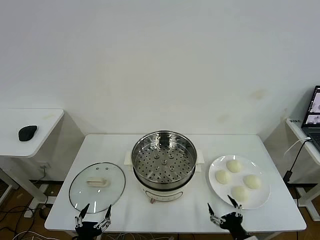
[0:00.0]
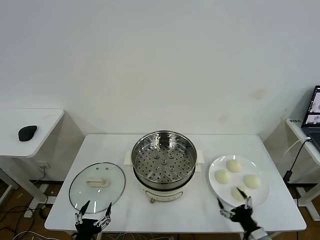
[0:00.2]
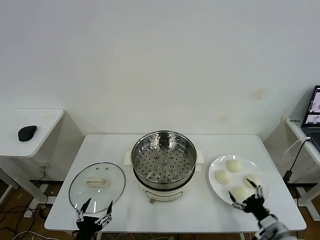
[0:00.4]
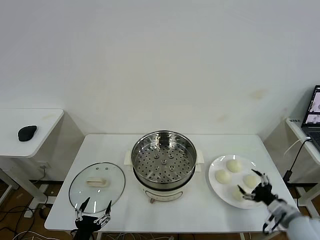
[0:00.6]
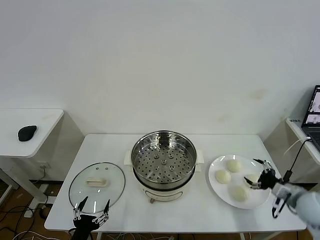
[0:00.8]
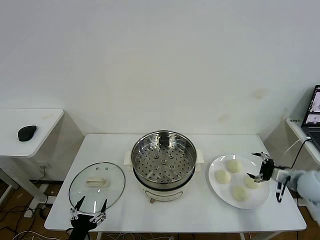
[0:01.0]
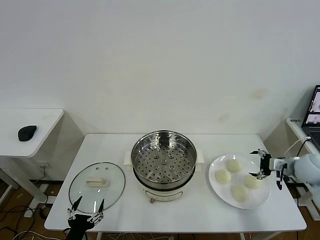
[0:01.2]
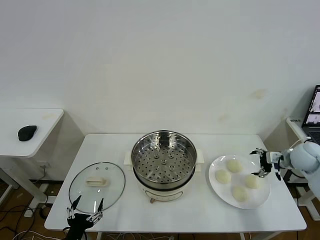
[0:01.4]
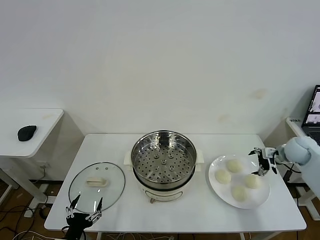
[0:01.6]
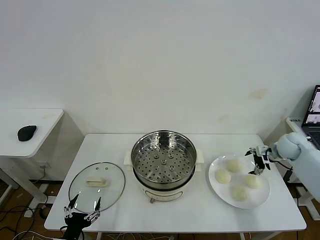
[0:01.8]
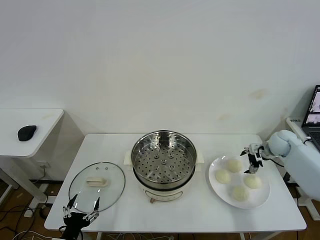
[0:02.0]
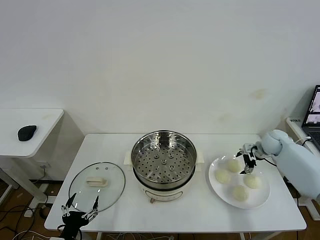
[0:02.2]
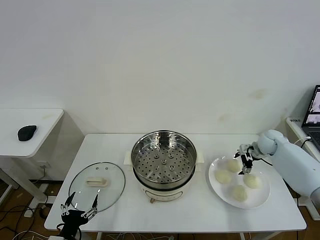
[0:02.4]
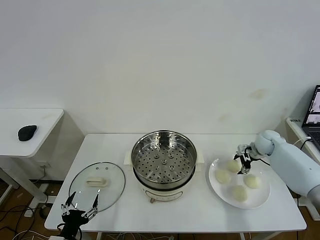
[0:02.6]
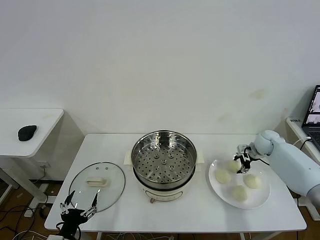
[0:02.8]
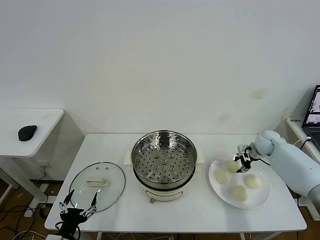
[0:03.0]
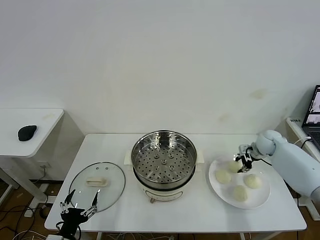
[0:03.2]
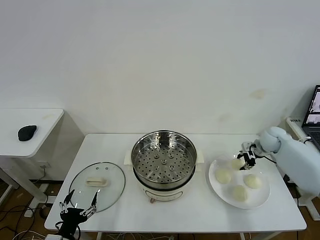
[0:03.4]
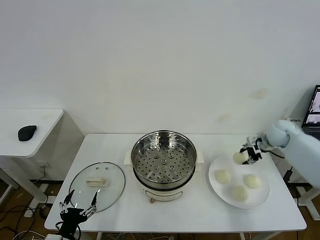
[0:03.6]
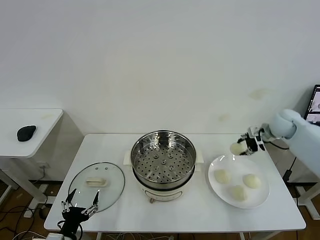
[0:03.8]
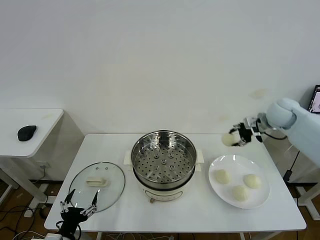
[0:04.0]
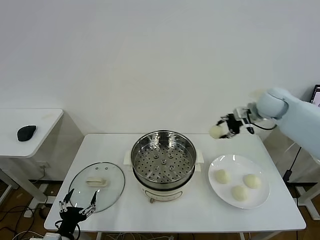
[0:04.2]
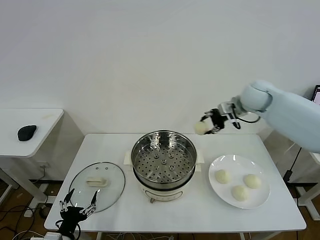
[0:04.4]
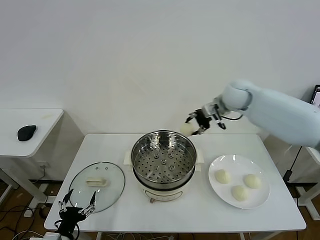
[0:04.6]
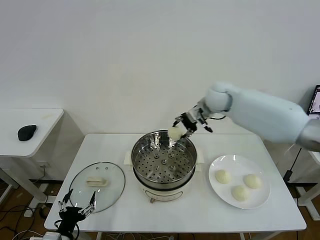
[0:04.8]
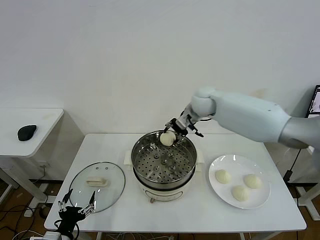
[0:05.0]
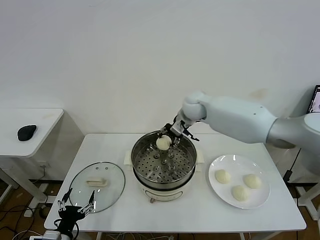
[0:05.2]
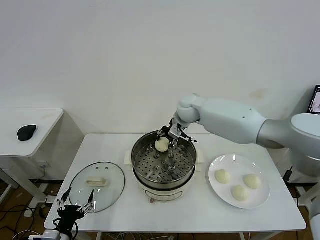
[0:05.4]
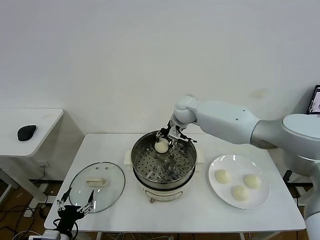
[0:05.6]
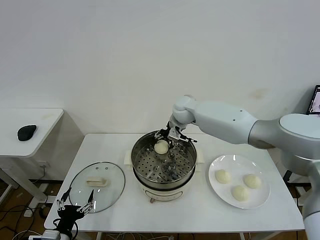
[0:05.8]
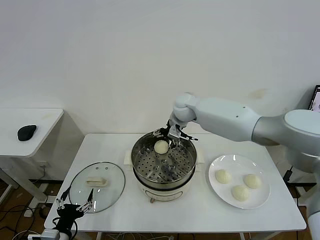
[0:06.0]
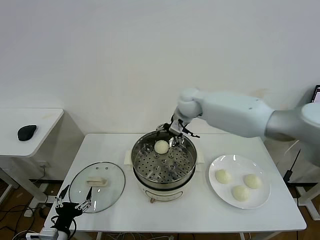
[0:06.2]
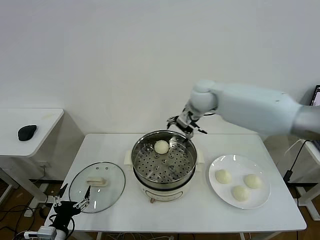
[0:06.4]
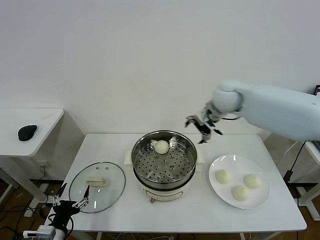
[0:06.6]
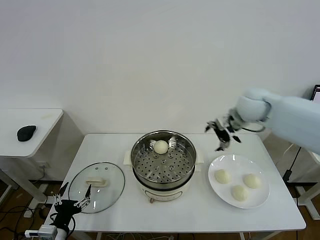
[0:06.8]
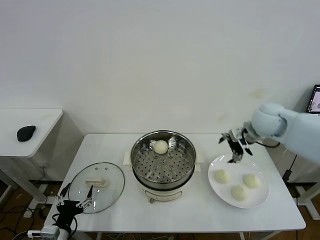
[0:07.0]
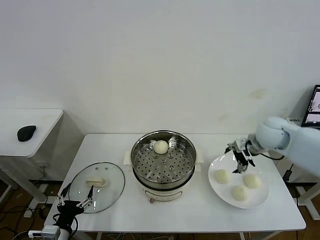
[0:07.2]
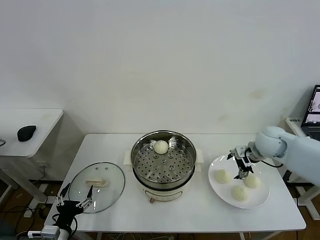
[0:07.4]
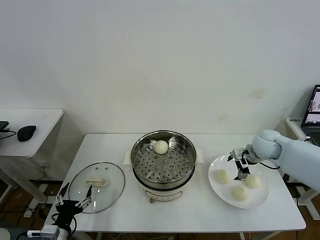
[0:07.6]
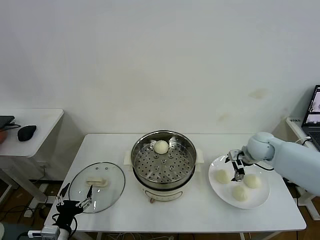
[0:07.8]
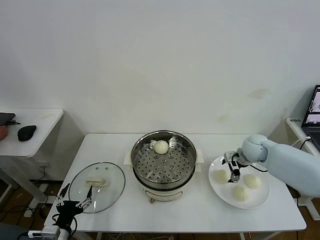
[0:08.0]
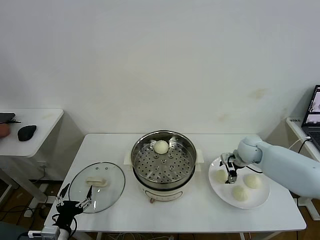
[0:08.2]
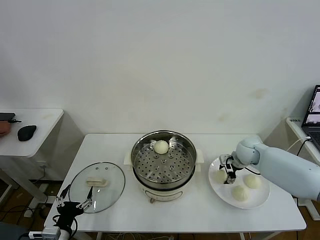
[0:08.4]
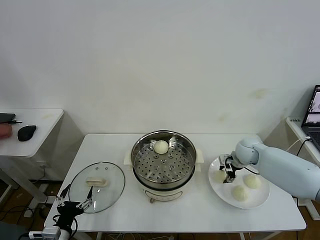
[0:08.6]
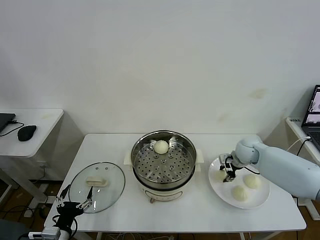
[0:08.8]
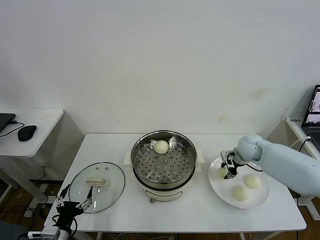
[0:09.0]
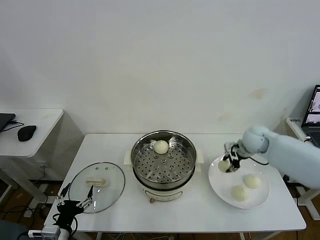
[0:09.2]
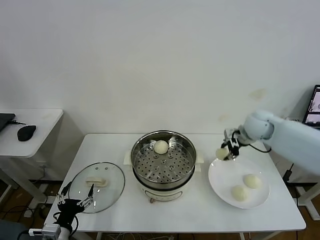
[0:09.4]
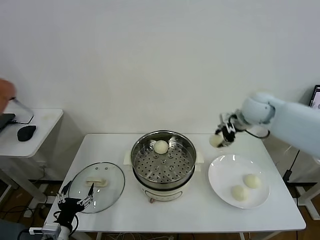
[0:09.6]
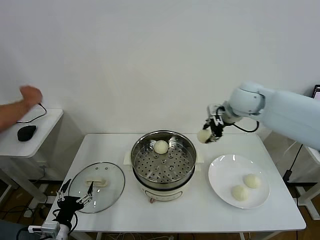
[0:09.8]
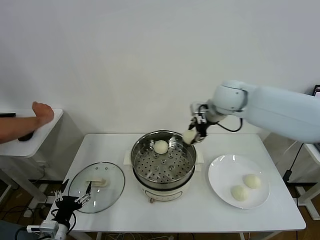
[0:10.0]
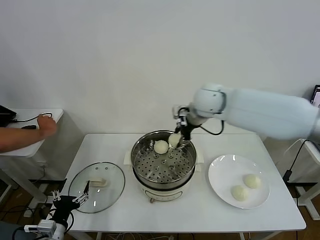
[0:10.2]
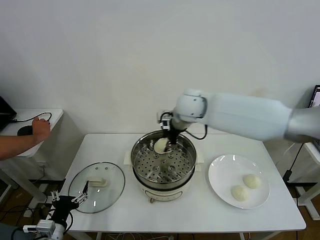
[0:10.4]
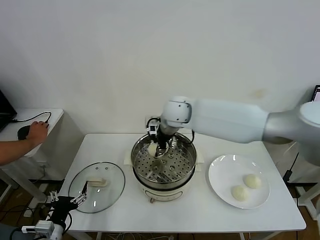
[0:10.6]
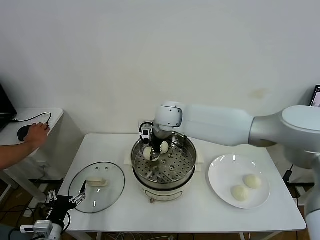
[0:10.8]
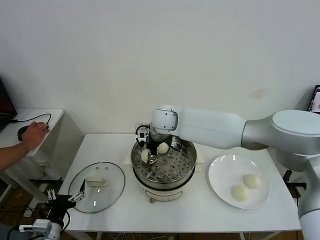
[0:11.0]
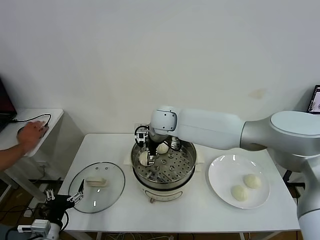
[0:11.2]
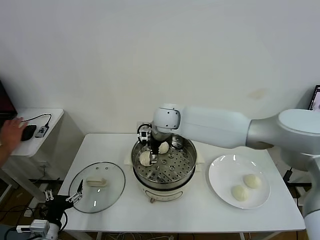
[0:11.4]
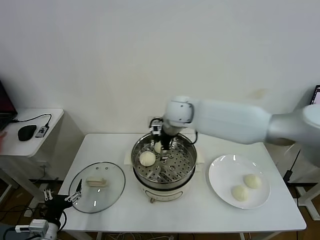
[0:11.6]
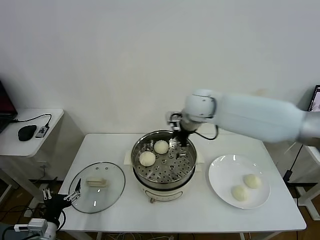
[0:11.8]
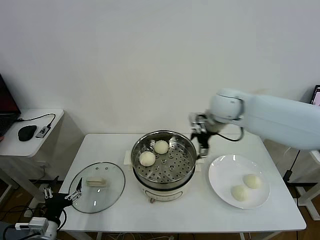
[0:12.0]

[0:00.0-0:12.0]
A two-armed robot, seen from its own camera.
Task of the whole recording: take steamed baozi put them in steamer then cover it.
Step, 0:00.0 to 0:02.8: Grasp the baozi in the plate with right gripper.
Step, 0:03.0 to 0:05.8: Place the baozi on the steamer with right gripper.
Step, 0:06.0 to 0:08.4: Grasp the baozi in the plate with right gripper.
Step, 0:08.6 to 0:11.2: Place the baozi on the steamer with right gripper.
0:01.6 to 0:03.0: The right gripper shifts some 10 cm forward and to the left, and closes its fingers.
0:03.0 to 0:04.4: The right gripper travels upward and to the left by some 25 cm.
0:04.4 to 0:06.0: The right gripper moves to the left, approximately 20 cm, and opens.
0:06.0 to 0:07.6: The right gripper travels to the right by roughly 25 cm.
0:07.6 to 0:09.0: The right gripper closes.
0:09.0 to 0:10.4: The right gripper heads to the left and upward, covering approximately 30 cm.
0:10.4 to 0:12.0: The right gripper goes approximately 15 cm to the right, and opens its fingers.

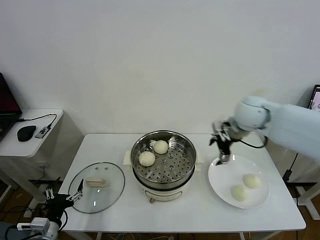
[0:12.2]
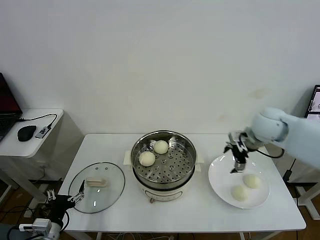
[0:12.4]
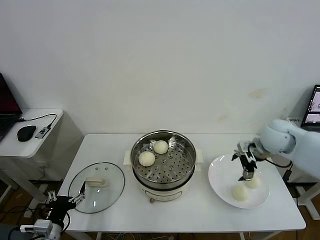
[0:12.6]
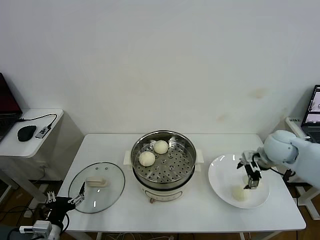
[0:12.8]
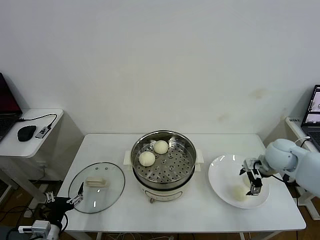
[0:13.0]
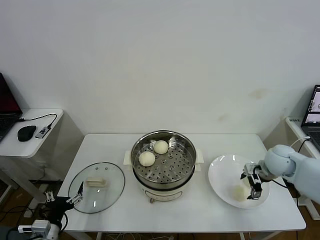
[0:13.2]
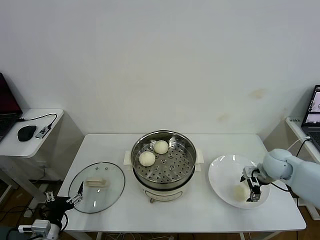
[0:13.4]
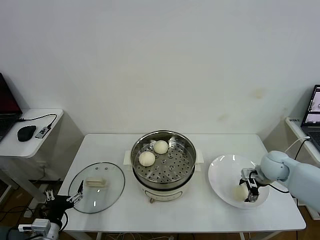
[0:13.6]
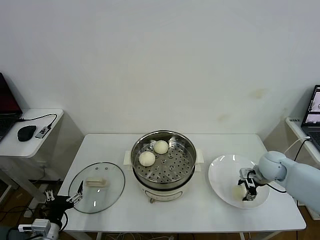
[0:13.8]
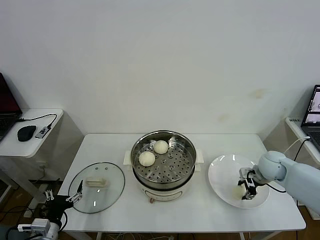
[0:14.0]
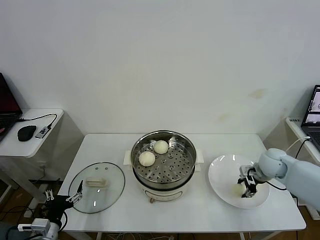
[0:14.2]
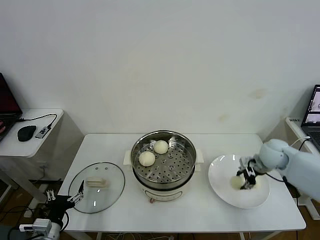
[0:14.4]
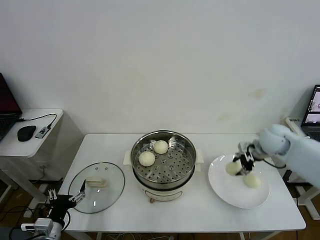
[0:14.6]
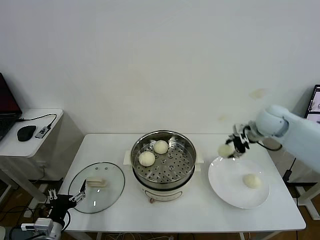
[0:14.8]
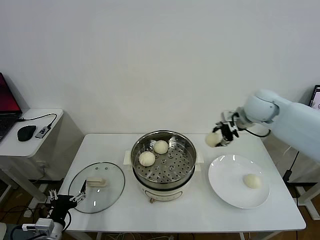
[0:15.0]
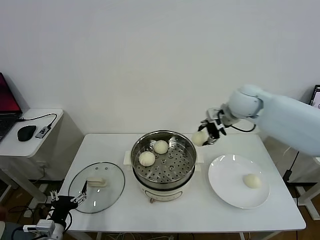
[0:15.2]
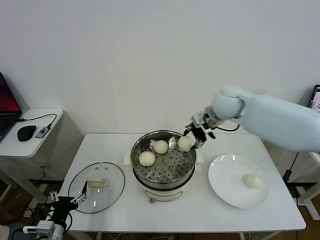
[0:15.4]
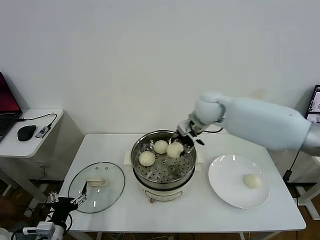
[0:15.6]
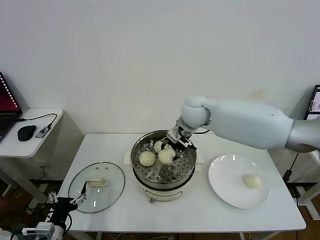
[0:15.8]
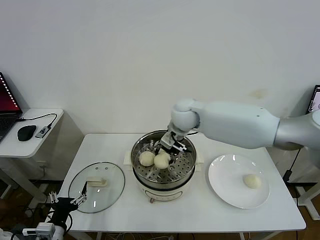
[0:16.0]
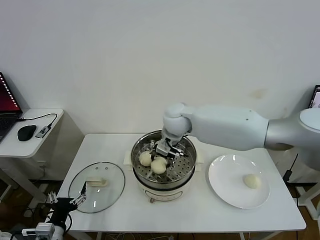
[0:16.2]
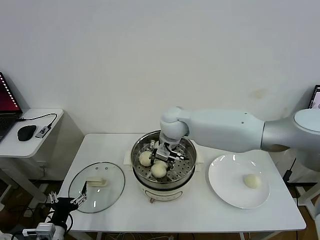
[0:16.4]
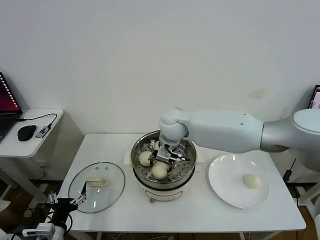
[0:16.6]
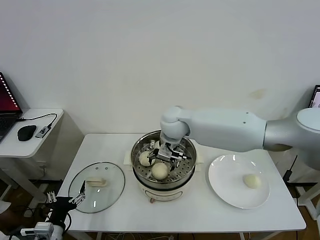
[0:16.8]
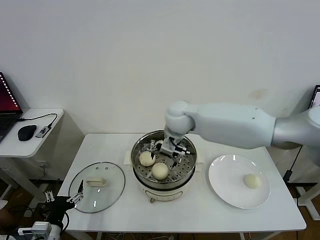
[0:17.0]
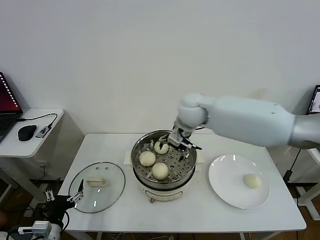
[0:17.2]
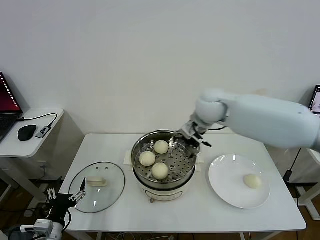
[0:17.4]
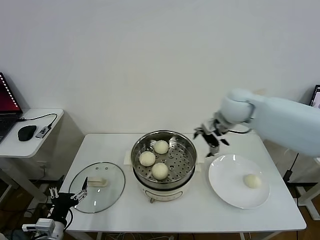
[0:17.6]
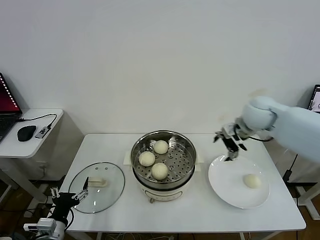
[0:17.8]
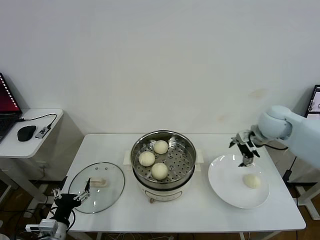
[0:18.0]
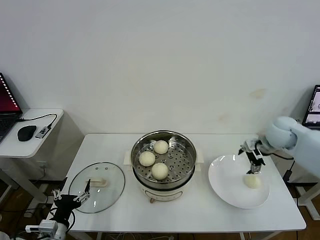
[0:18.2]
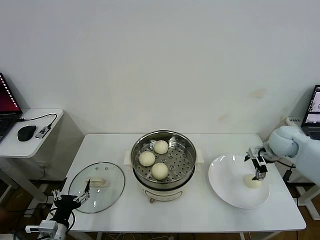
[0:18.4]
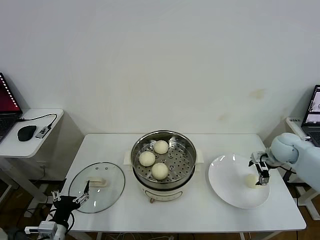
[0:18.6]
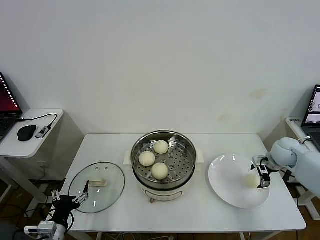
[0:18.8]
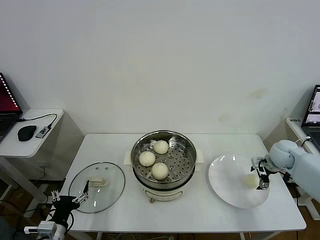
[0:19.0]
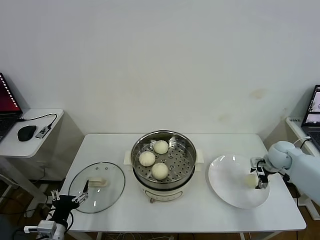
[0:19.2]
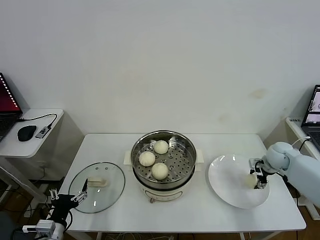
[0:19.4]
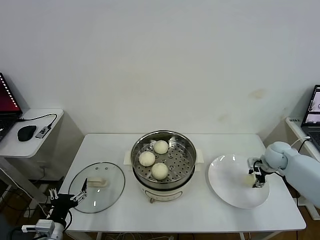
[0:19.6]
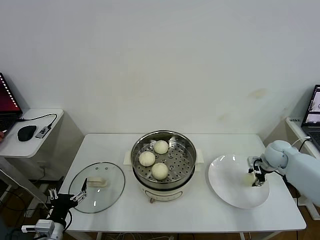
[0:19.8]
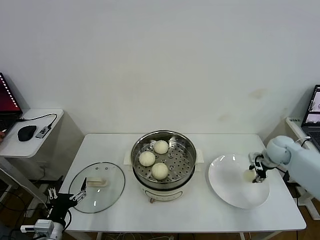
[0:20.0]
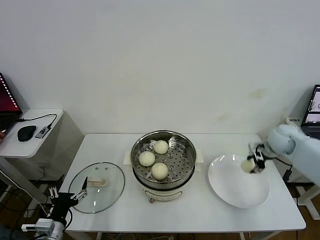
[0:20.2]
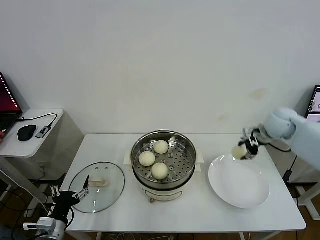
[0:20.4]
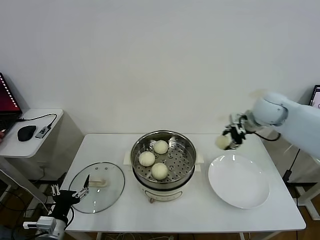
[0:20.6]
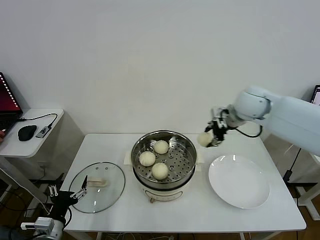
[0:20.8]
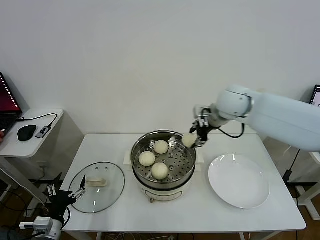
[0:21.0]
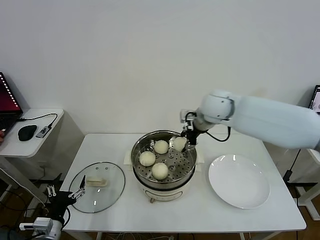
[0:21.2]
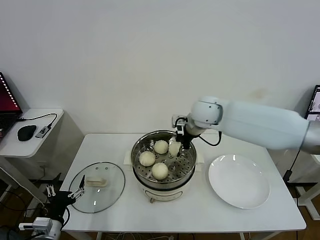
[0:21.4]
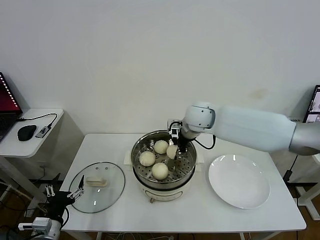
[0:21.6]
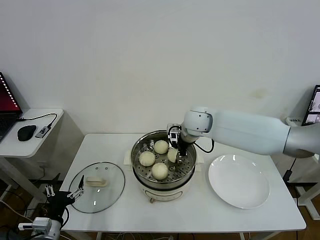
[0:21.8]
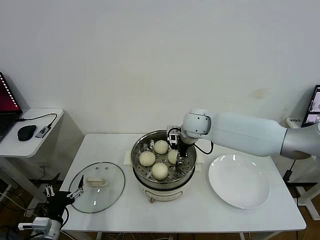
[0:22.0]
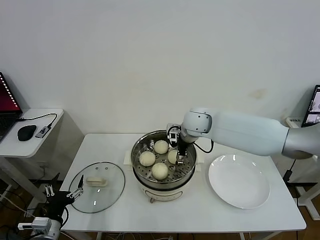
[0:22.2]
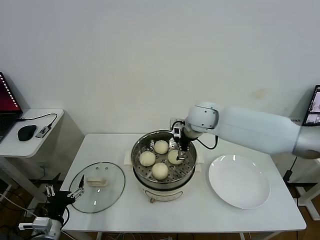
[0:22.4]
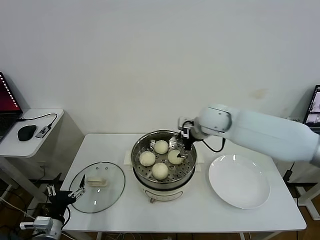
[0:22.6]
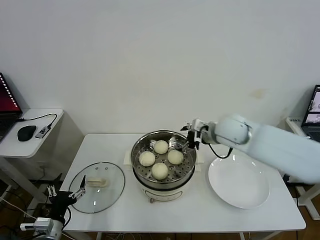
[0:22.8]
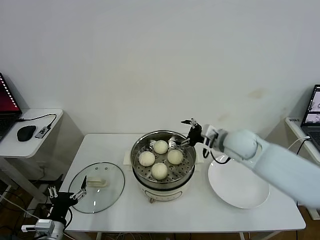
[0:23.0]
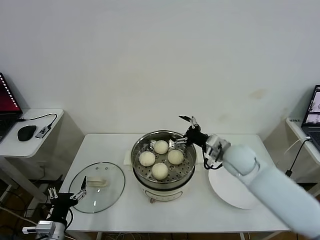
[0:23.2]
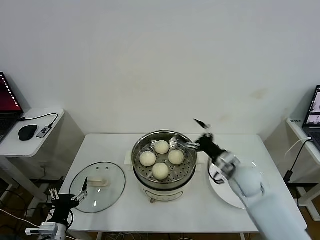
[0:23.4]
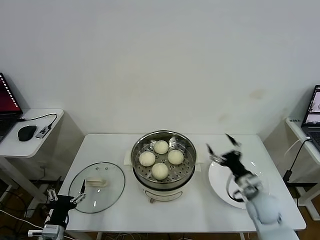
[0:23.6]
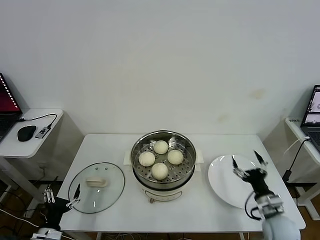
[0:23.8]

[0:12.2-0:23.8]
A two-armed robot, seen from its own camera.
Task of the whole recording: take steamed baozi put them in steamer then cover it.
Step, 0:12.2 to 0:13.8: Grasp the baozi in the plate with right gripper.
Step, 0:14.0 to 0:16.8: Place the baozi on the steamer with right gripper.
Step, 0:17.0 to 0:19.6: Grasp the baozi in the plate with right gripper.
Step, 0:19.8 to 0:22.2: Place the baozi on the steamer with right gripper.
0:12.2 to 0:13.6: The right gripper goes about 20 cm downward and to the right, and closes.
0:13.6 to 0:15.0: The right gripper goes about 25 cm upward, to the left and forward, and closes up.
0:15.0 to 0:16.6: The right gripper heads to the left, covering some 25 cm.
0:16.6 to 0:18.0: The right gripper is displaced to the right by some 30 cm, and opens.
0:18.0 to 0:19.4: The right gripper moves downward and to the right, some 20 cm, and closes its fingers.
0:19.4 to 0:21.0: The right gripper heads to the left and upward, covering approximately 30 cm.
0:21.0 to 0:22.4: The right gripper heads to the left and downward, covering some 10 cm, and opens.
0:22.4 to 0:23.8: The right gripper shifts roughly 40 cm backward, to the right and downward.
